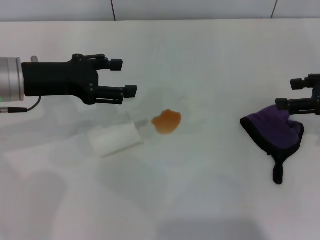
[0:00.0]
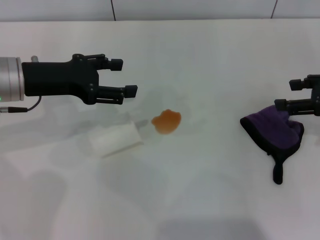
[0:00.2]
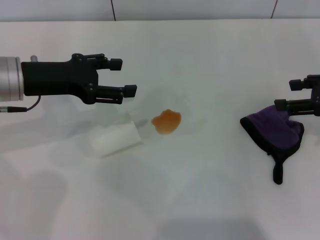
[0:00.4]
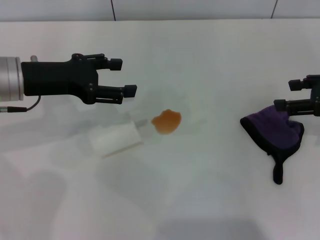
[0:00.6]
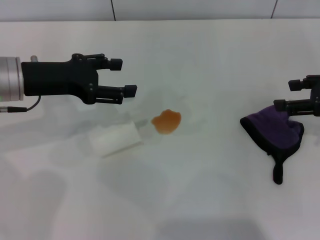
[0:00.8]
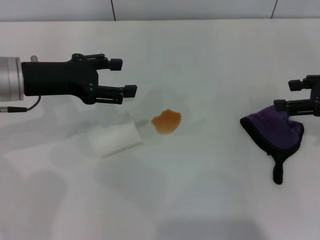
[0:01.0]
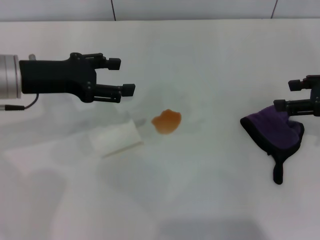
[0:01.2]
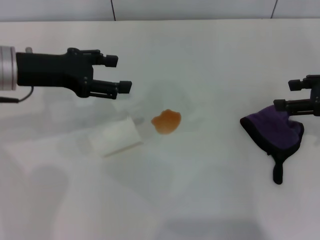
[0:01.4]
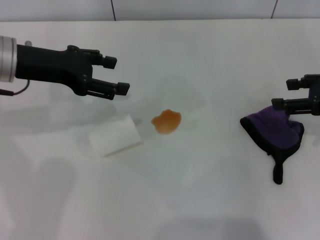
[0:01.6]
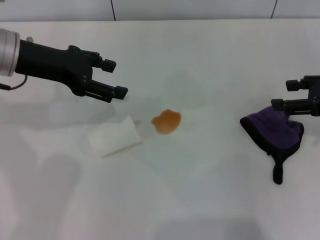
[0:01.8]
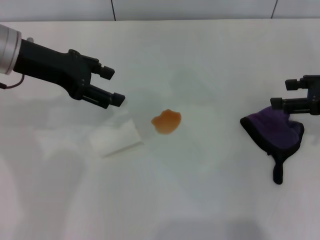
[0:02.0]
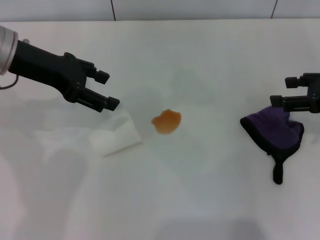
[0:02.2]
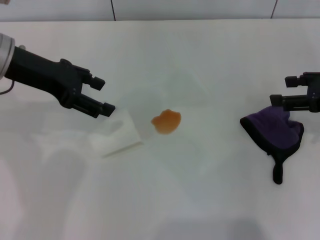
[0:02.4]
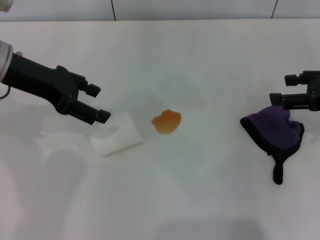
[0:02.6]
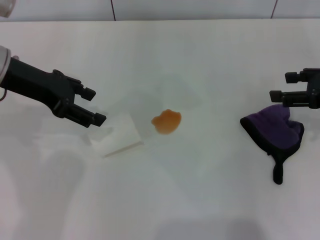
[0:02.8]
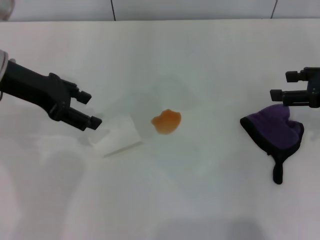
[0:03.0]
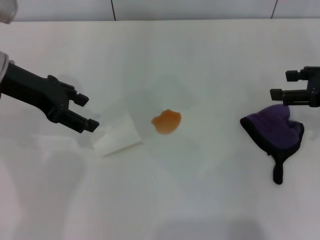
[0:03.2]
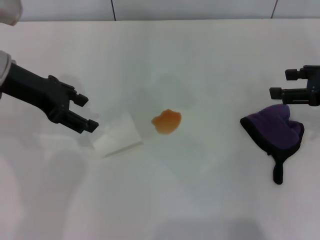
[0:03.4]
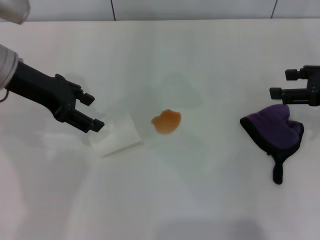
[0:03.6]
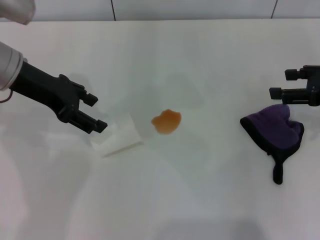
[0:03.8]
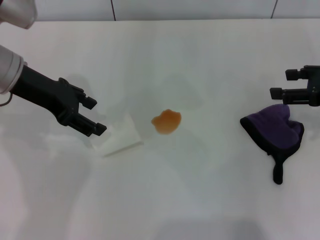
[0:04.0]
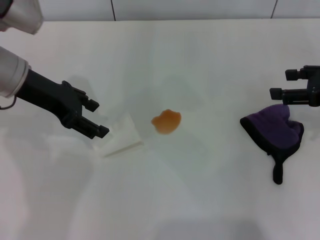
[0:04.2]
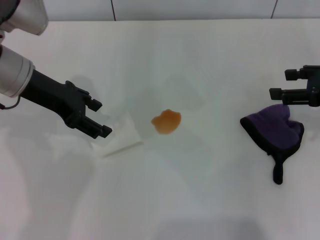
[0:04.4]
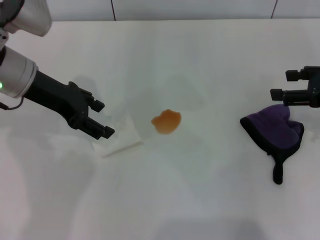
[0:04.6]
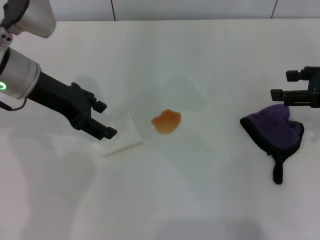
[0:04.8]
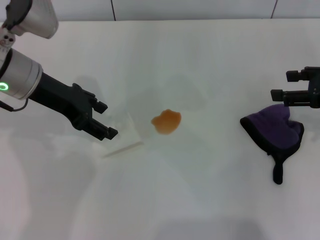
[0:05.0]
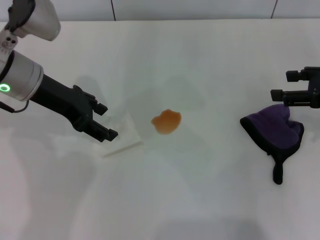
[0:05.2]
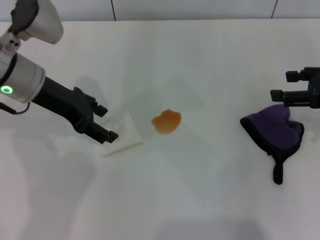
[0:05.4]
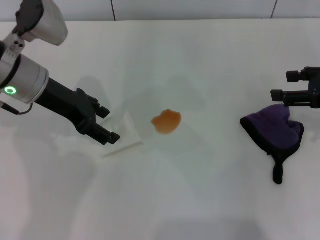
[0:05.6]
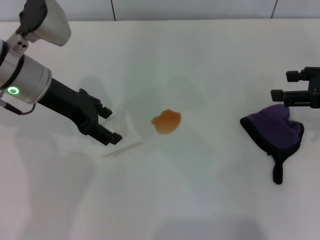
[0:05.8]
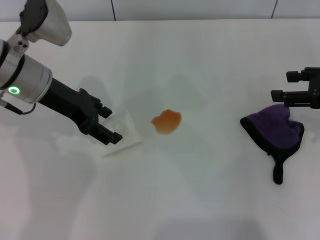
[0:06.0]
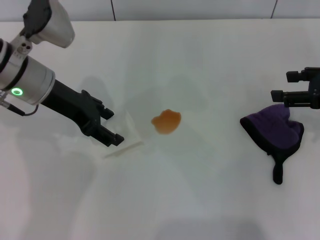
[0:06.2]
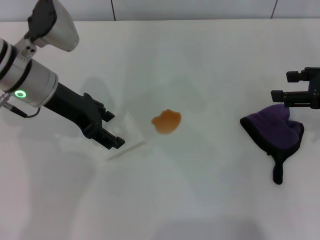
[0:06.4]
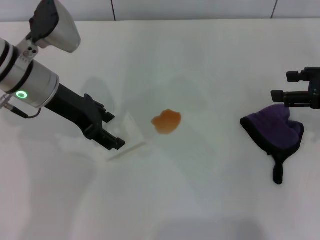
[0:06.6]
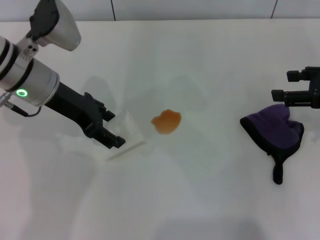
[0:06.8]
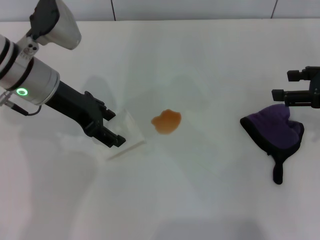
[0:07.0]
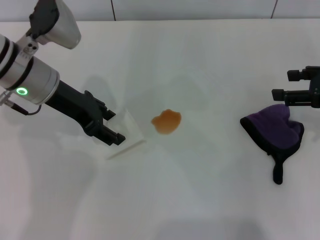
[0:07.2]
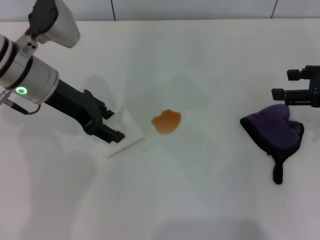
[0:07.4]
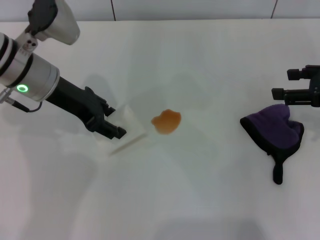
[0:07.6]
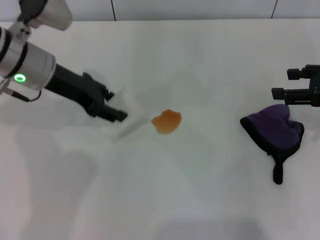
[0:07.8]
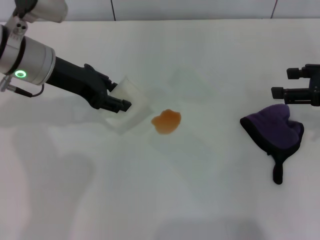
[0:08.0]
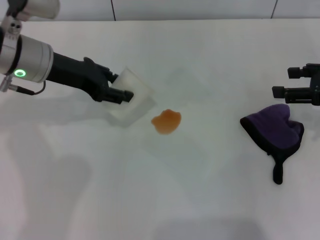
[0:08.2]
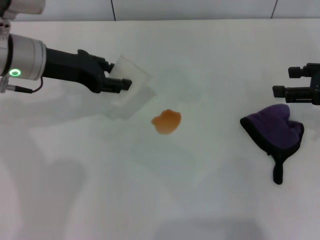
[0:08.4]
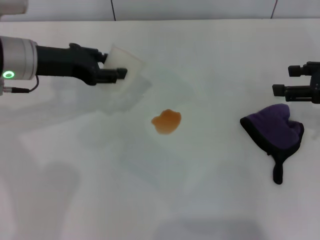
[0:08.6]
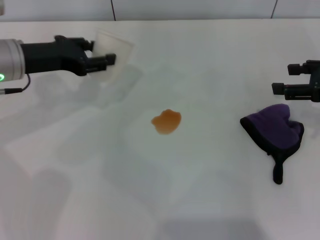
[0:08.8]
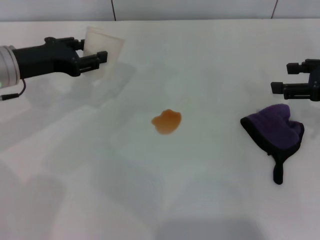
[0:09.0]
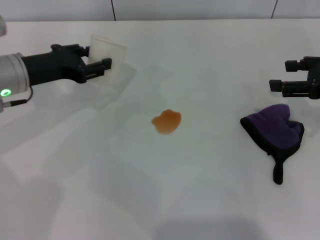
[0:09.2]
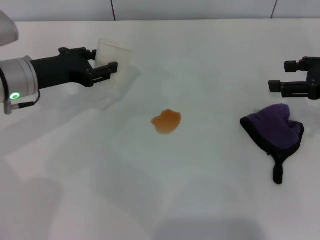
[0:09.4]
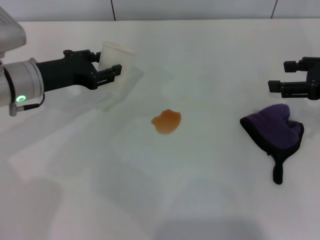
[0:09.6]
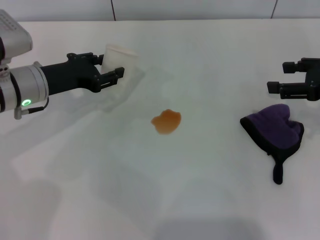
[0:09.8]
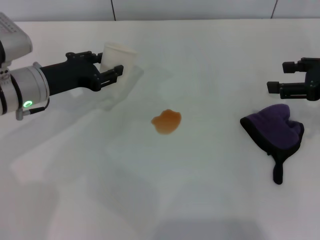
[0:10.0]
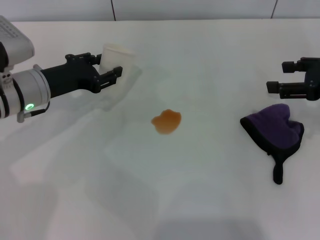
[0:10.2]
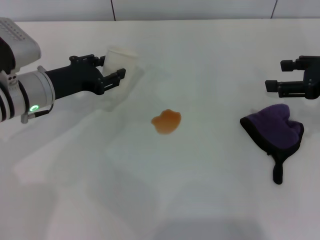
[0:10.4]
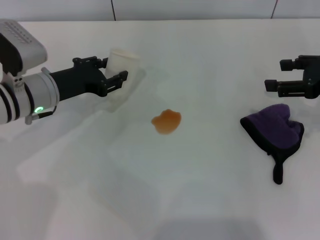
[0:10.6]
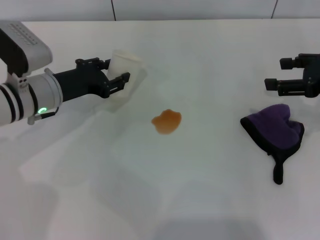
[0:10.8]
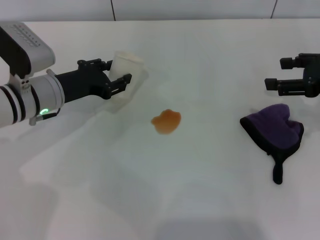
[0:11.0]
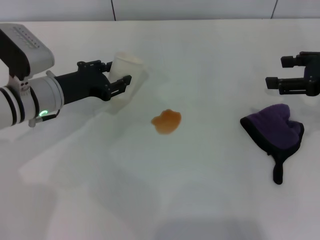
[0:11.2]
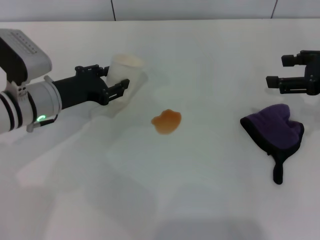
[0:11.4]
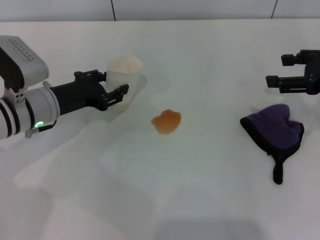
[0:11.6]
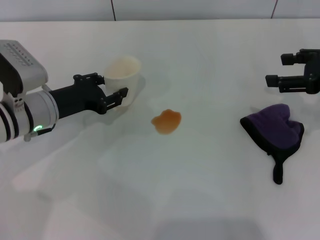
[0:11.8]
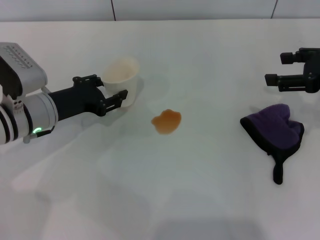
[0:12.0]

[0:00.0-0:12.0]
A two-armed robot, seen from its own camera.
Step, 0:00.0 to 0:07.2: Grasp the paper cup with the left gripper.
0:00.0 to 0:01.6: The grippers make only small movements.
0:03.0 to 0:06.0: The grippers make only small movements.
0:06.0 to 0:07.6: The left gripper closes up.
0:07.6 to 0:09.0: The left gripper shifts approximately 5 cm to the left.
0:09.0 to 0:10.4: The left gripper is displaced downward by roughly 5 cm.
0:10.4 to 0:12.0: There are only small adjustments of the grippers.

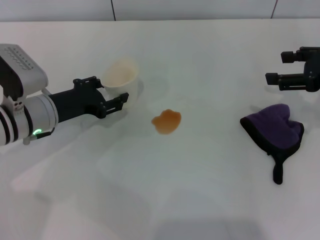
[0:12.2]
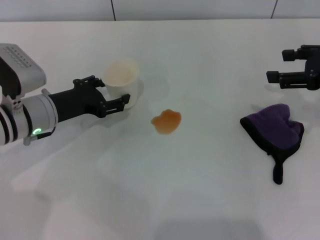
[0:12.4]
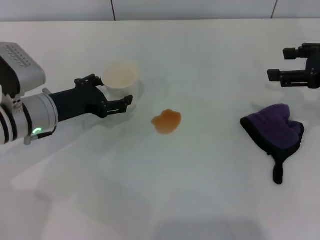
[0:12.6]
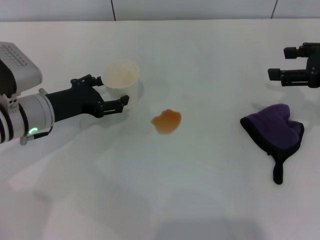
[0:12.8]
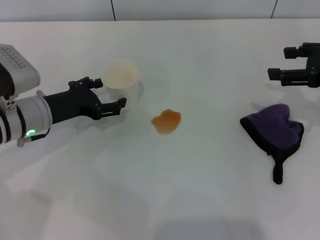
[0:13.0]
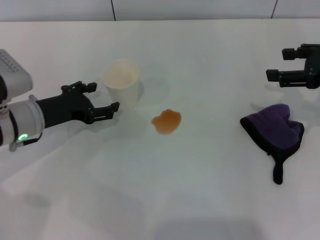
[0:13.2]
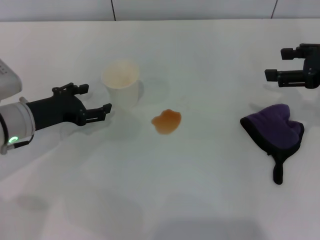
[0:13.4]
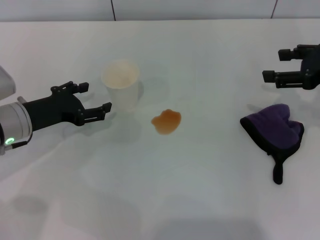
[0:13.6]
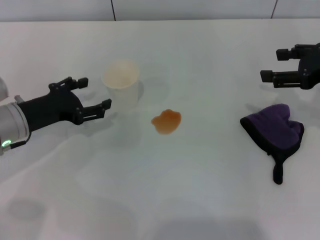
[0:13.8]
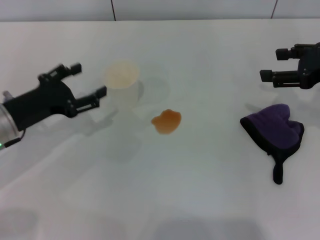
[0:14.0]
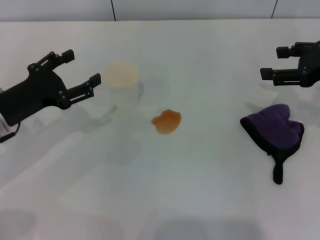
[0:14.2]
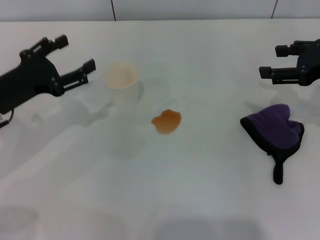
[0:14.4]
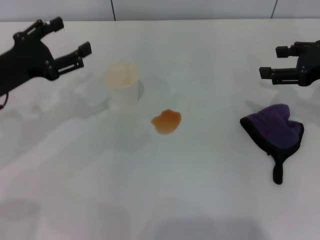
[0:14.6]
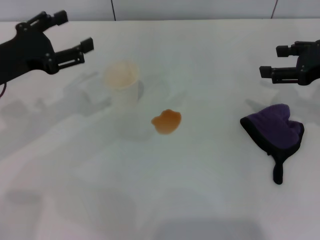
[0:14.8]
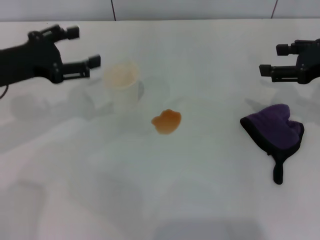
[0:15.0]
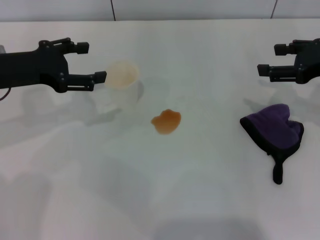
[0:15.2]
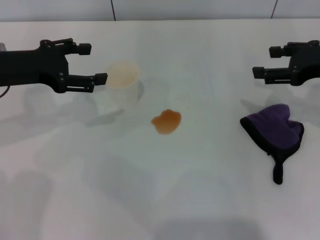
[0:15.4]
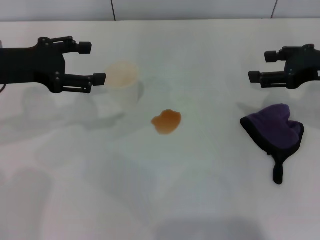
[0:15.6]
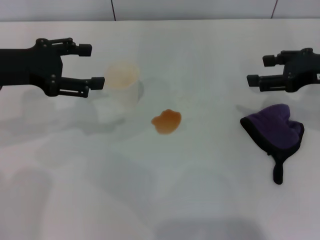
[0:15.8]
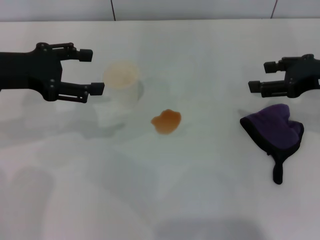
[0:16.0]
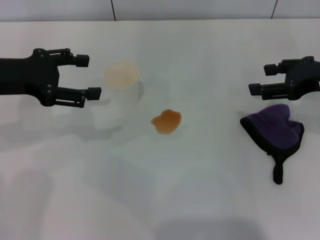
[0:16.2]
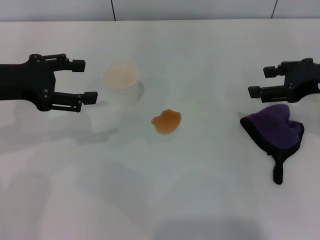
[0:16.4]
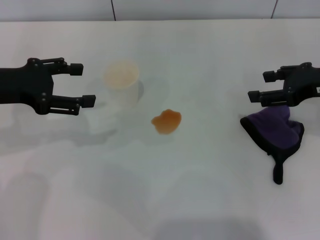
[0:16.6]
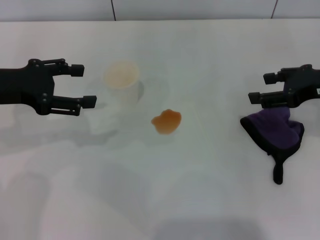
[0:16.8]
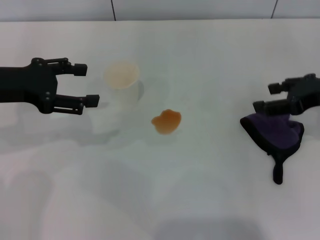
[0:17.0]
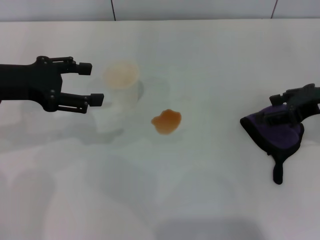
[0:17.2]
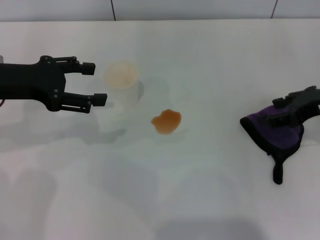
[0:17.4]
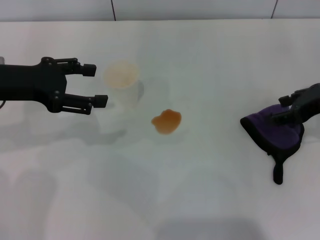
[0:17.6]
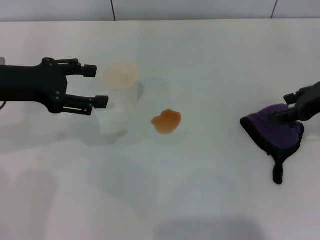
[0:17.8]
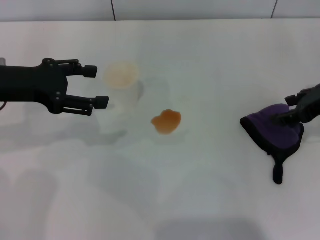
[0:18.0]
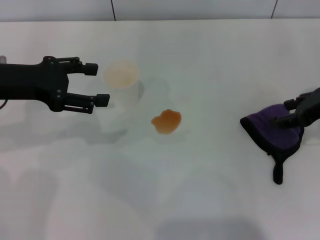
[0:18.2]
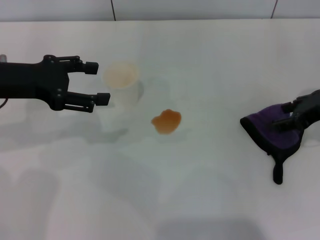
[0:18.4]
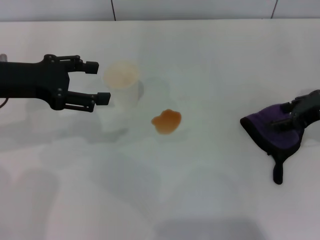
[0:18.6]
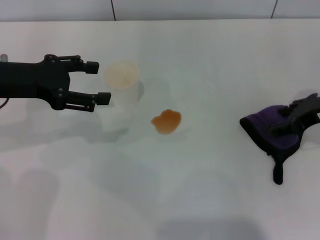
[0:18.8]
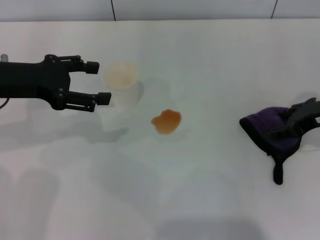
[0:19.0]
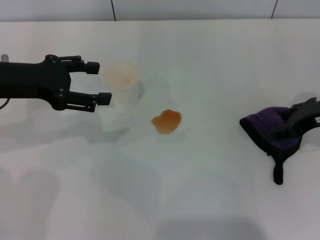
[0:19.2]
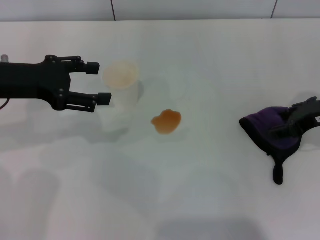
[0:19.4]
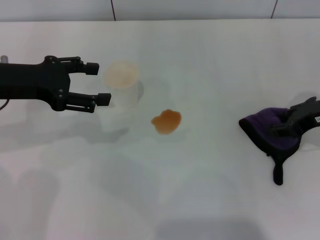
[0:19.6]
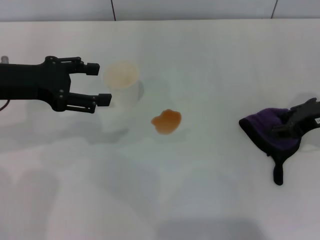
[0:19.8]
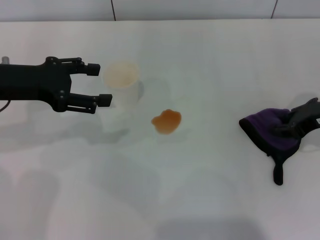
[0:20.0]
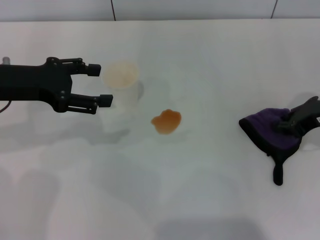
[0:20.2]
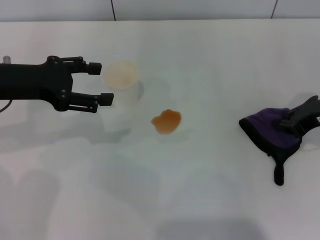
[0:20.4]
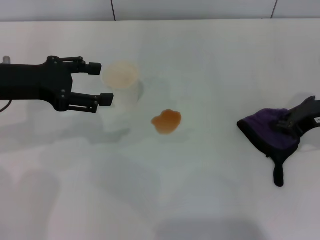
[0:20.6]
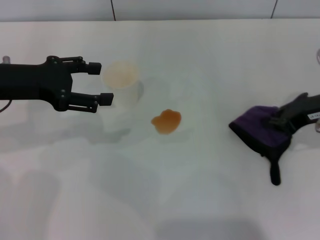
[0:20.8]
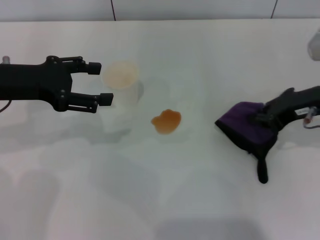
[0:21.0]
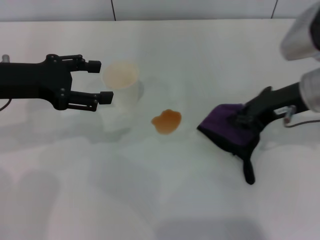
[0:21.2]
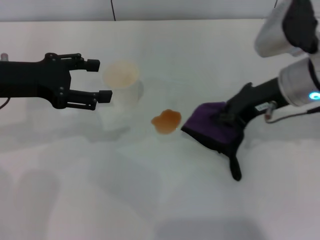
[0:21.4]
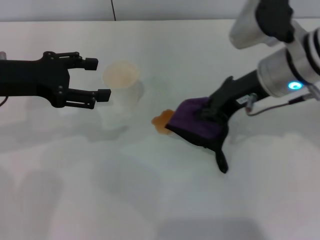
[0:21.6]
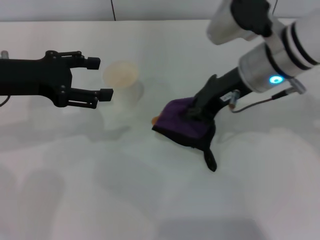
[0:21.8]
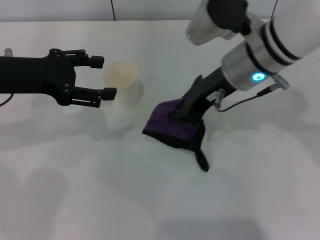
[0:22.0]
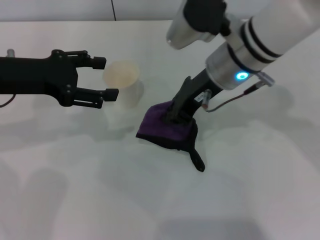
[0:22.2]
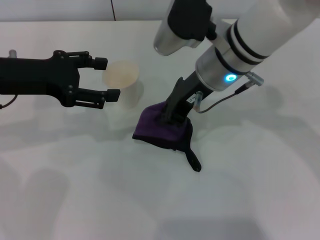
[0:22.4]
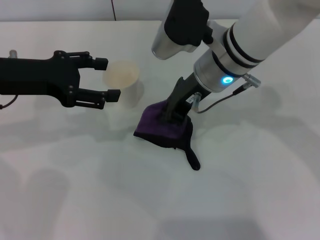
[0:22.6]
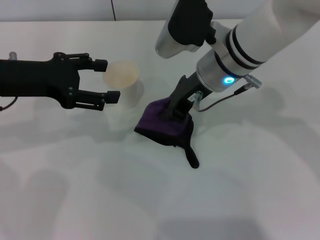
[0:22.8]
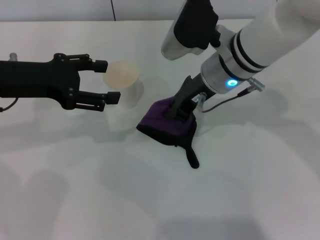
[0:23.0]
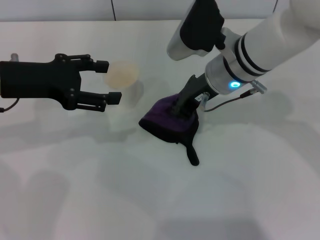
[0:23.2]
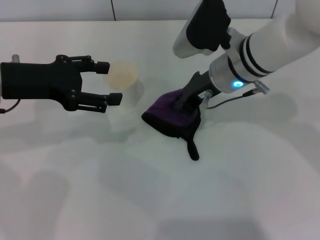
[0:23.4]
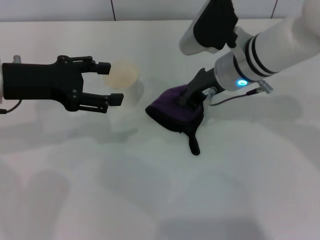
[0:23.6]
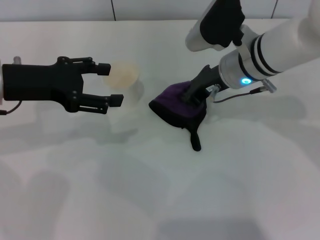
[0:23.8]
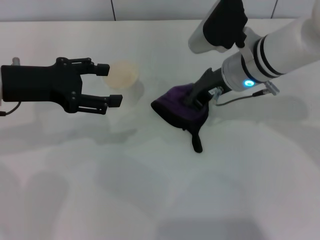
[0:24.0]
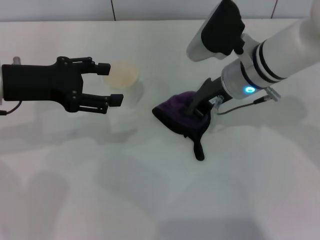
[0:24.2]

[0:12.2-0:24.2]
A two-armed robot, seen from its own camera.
Step, 0:13.0 to 0:20.6: Grasp the rag with the right gripper.
0:12.2 to 0:13.8: The left gripper opens up.
0:13.8 to 0:15.2: The left gripper goes about 10 cm upward.
0:15.2 to 0:16.6: There are only small adjustments of the grippers.
0:16.6 to 0:18.2: There are only small adjustments of the grippers.
0:18.2 to 0:19.8: The grippers make only small movements.
0:19.8 to 0:21.2: The right gripper heads to the left, covering approximately 5 cm, and closes up.
0:21.2 to 0:22.6: The right gripper heads to the left, covering roughly 15 cm.
0:22.6 to 0:24.2: The right gripper changes place by approximately 5 cm.
